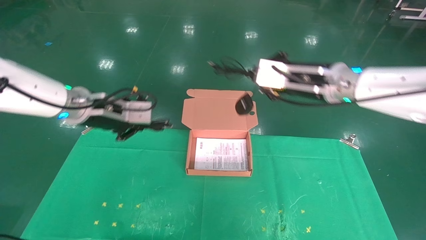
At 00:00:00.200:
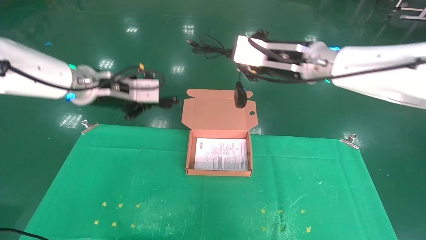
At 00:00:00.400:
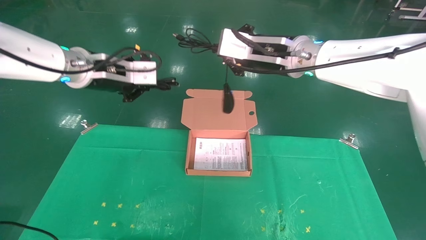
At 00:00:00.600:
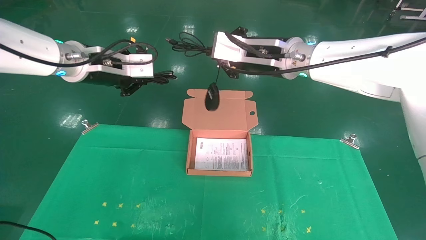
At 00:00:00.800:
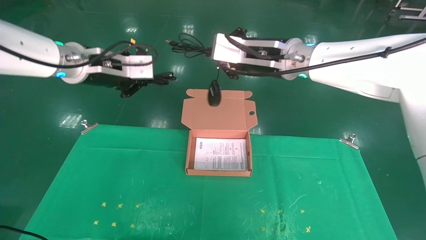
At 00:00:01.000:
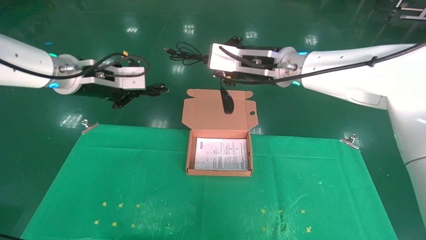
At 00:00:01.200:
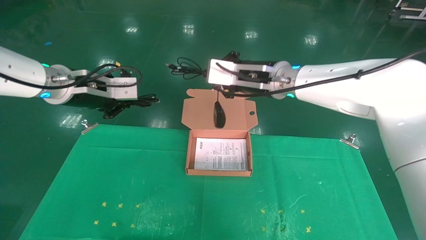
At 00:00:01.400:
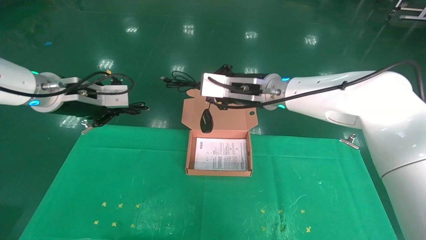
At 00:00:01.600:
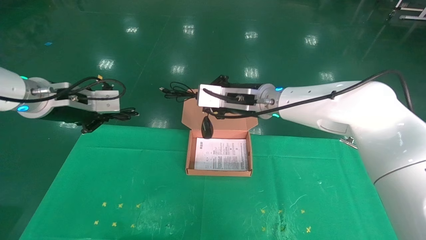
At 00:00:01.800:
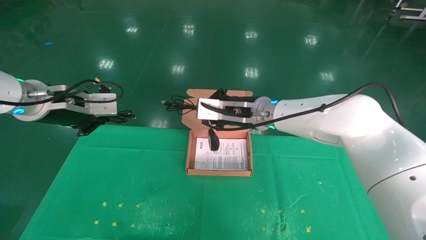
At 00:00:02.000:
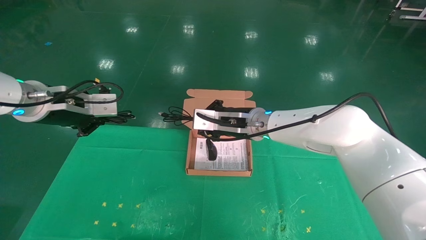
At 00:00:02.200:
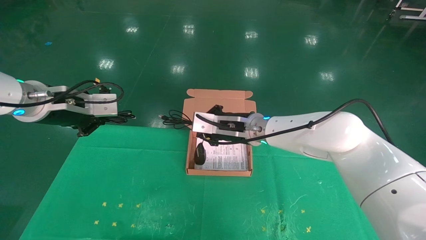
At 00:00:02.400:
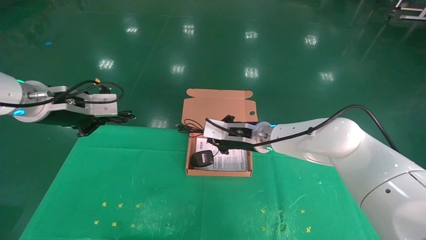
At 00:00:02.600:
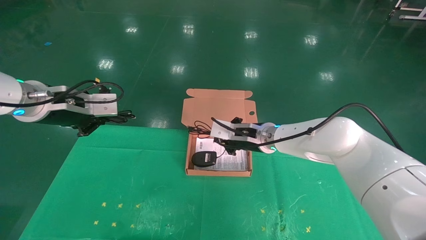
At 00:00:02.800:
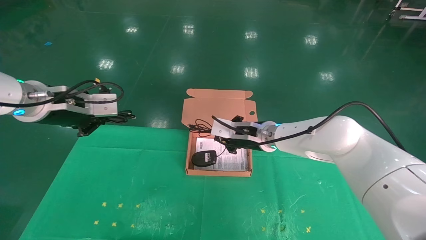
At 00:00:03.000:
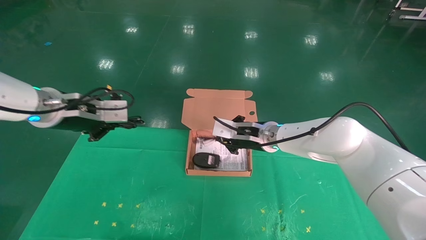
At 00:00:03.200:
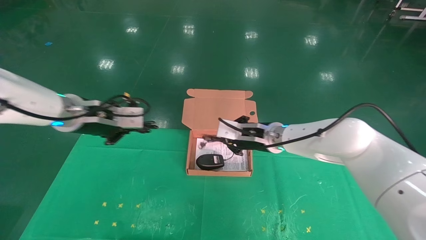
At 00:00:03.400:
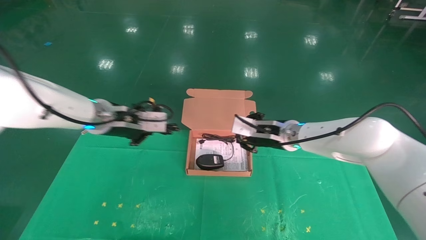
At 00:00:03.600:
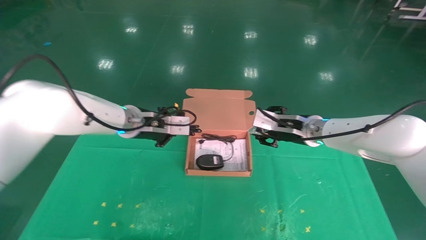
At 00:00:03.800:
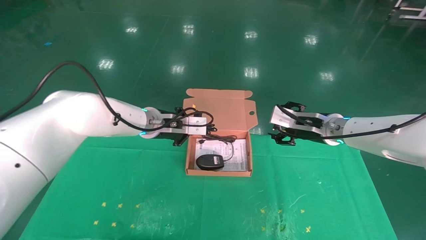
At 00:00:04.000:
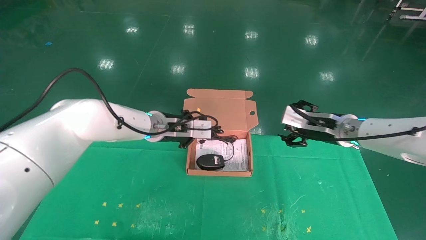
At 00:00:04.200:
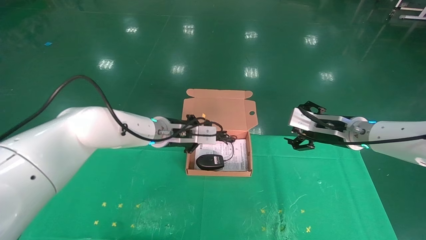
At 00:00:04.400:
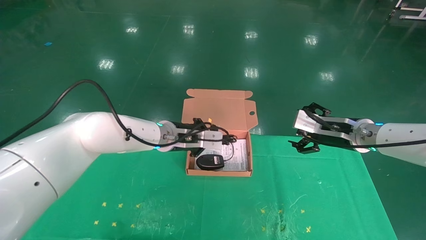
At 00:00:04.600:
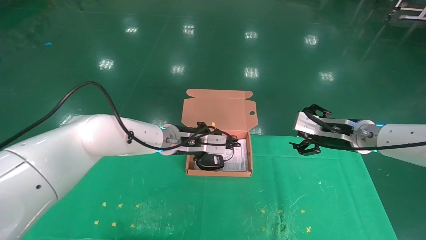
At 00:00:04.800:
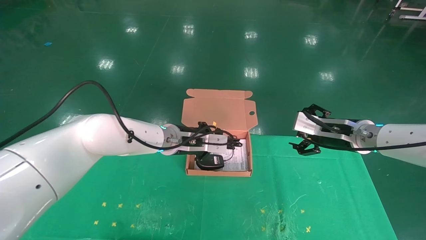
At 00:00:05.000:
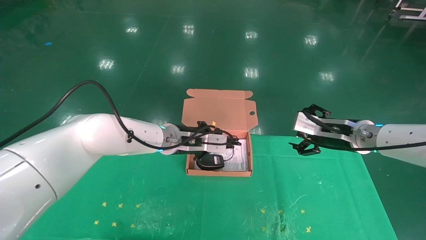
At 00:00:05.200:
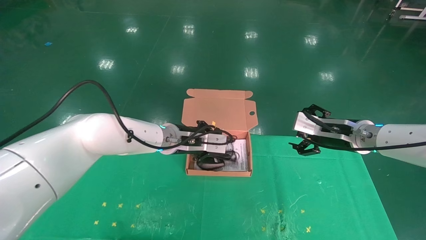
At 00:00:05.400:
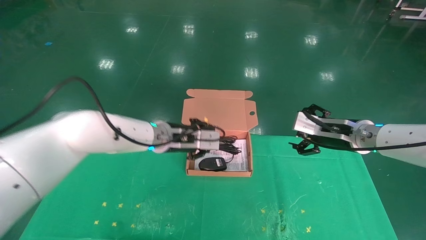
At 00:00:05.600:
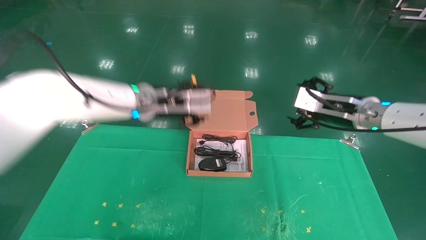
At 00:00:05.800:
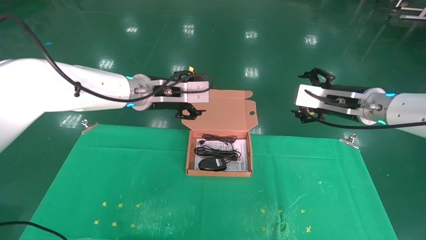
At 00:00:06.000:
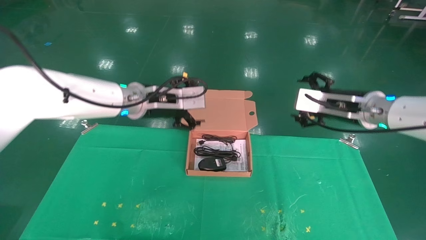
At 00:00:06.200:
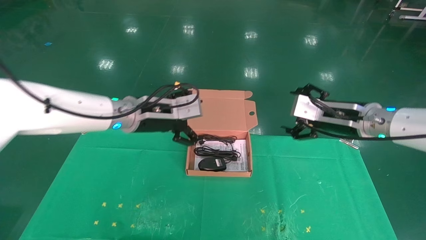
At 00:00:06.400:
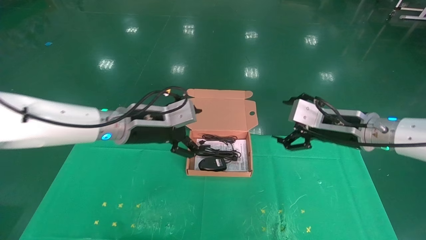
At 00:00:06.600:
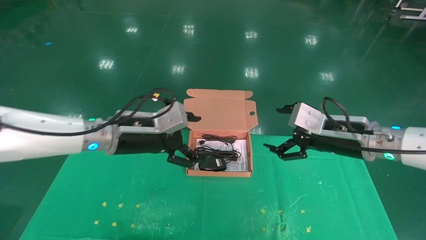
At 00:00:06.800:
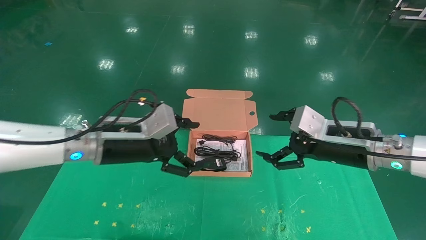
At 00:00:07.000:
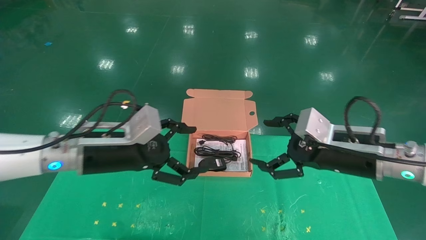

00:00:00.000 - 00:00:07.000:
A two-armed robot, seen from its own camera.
Task of the whole recording: grasp data cable left put into box grasp mouse right put into box.
Step, 00:00:00.000 - 00:00:04.800: Place the mouse and power cord into the box.
00:00:00.000 - 00:00:01.400: The right gripper is displaced to the left by about 10 cm, while the left gripper shifts by approximately 5 cm.
00:00:01.400 - 00:00:02.800: The right gripper travels downward by some 10 cm.
00:00:02.800 - 00:00:04.200: The left gripper shifts some 25 cm to the right, forward and downward; the right gripper goes roughly 20 cm to the right, and opens.
00:00:04.200 - 00:00:05.600: The right gripper ends up roughly 5 cm from where it was. The left gripper heads upward, covering some 5 cm, and opens its fingers.
00:00:05.600 - 00:00:07.000: The right gripper shifts approximately 10 cm backward. Meanwhile the left gripper is displaced backward and to the left by approximately 15 cm, and opens up.
